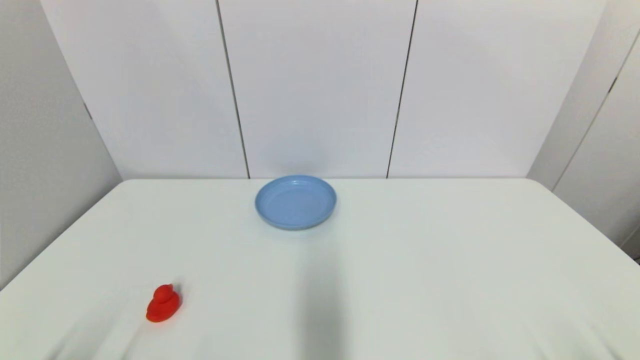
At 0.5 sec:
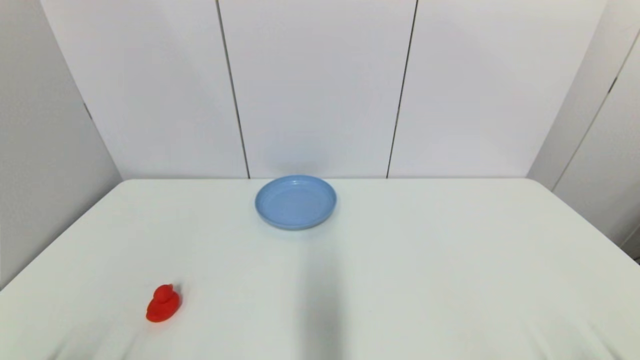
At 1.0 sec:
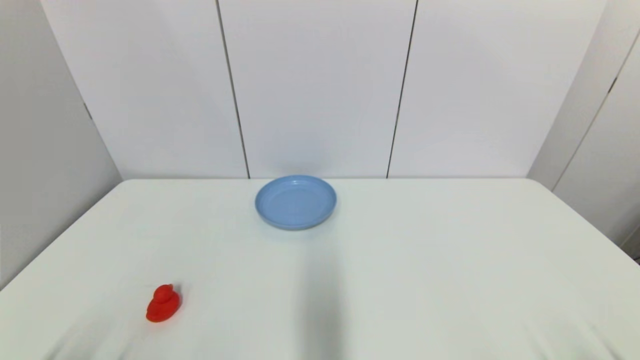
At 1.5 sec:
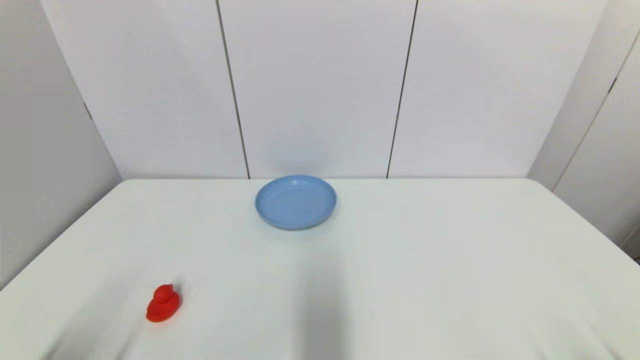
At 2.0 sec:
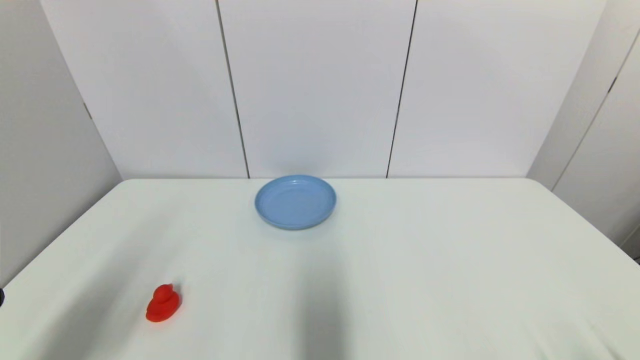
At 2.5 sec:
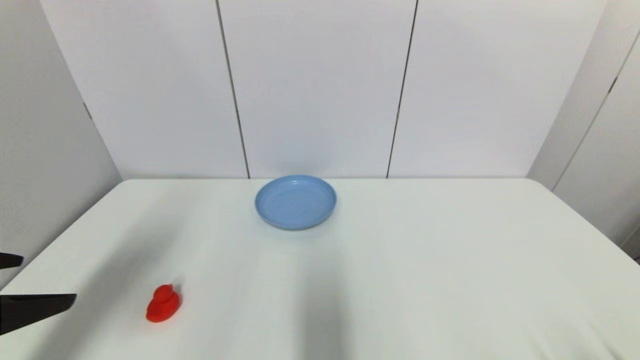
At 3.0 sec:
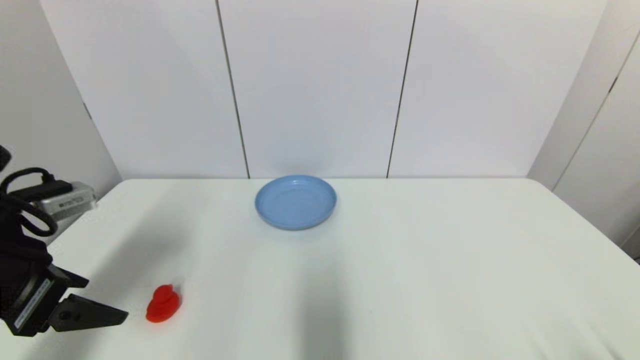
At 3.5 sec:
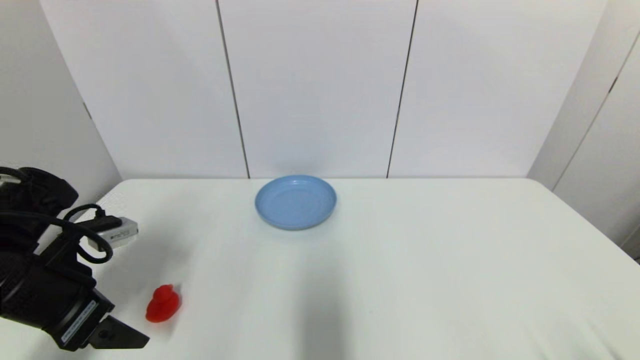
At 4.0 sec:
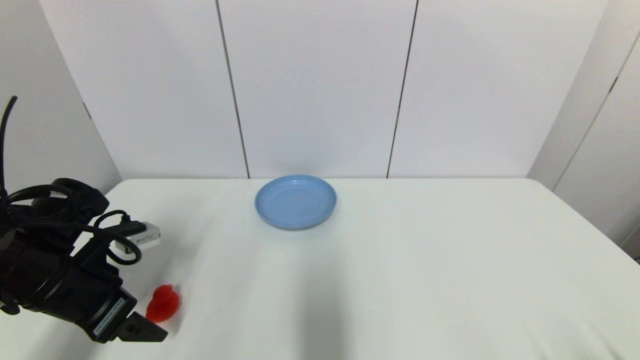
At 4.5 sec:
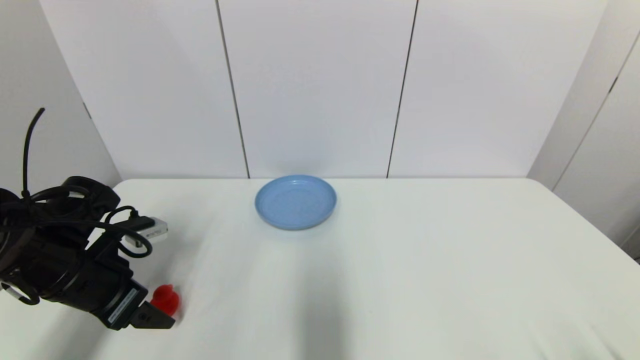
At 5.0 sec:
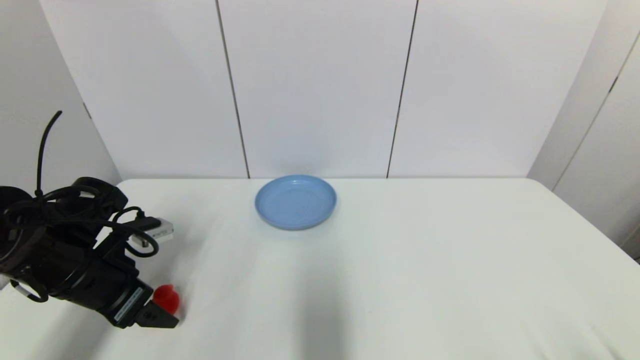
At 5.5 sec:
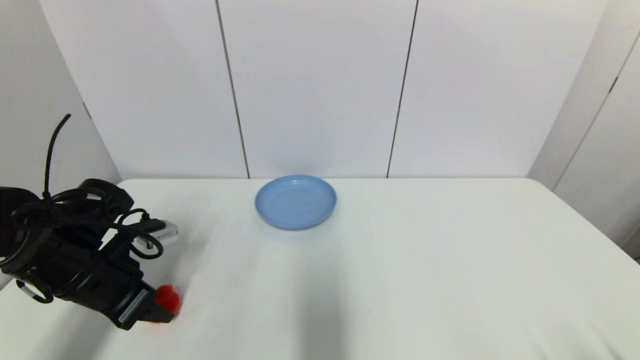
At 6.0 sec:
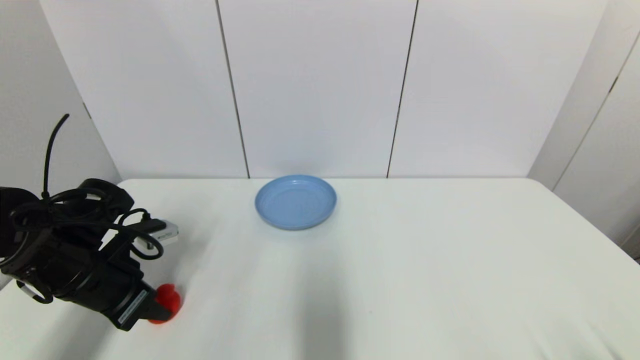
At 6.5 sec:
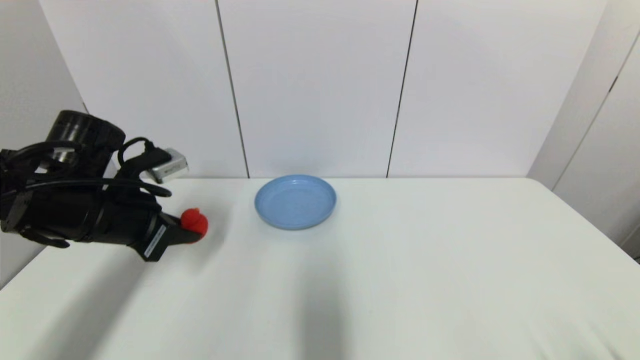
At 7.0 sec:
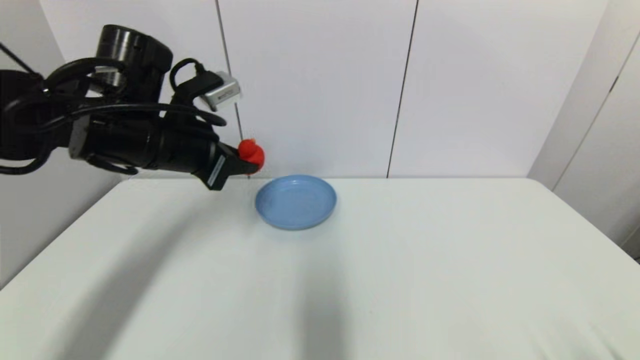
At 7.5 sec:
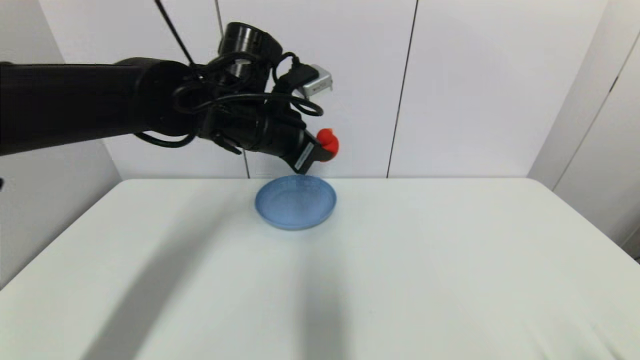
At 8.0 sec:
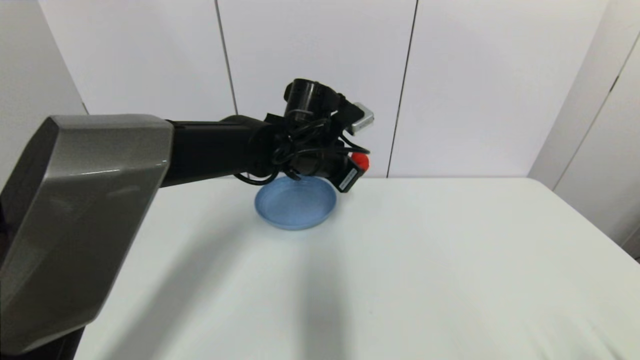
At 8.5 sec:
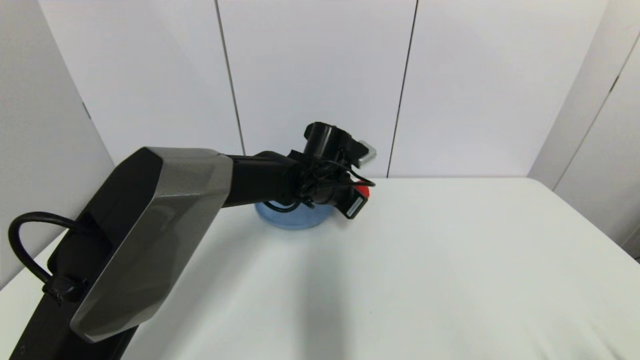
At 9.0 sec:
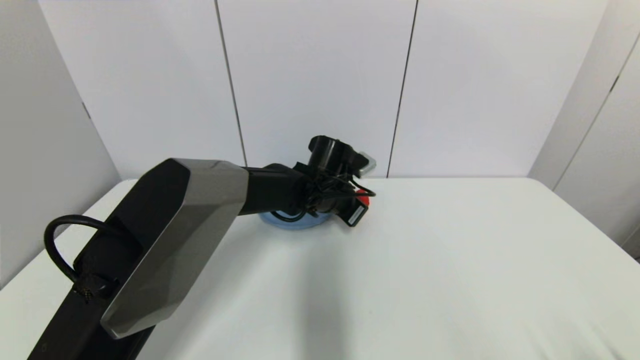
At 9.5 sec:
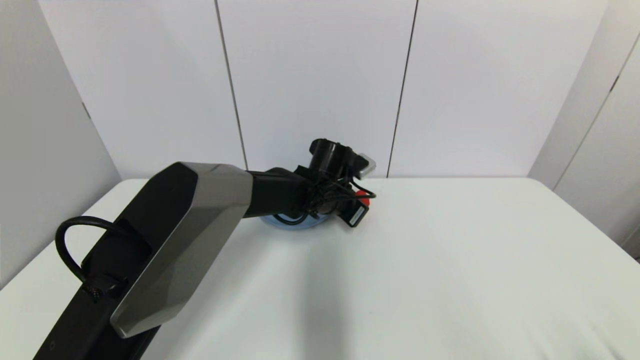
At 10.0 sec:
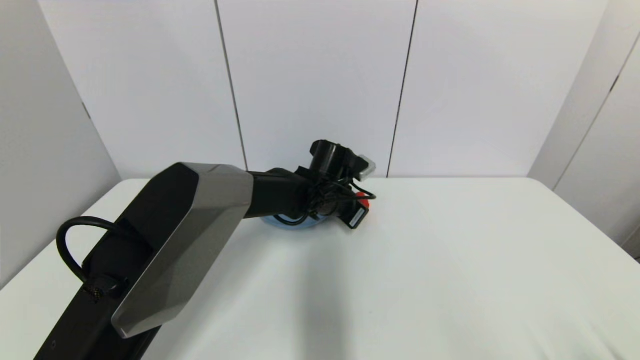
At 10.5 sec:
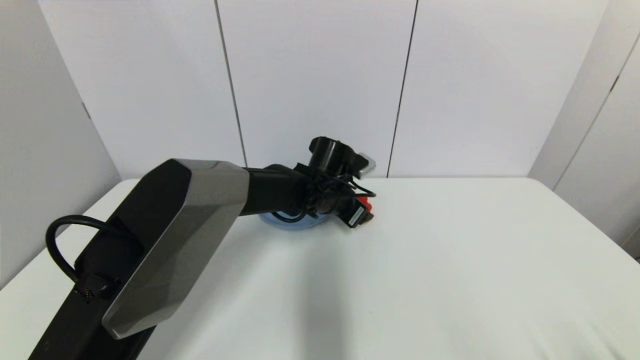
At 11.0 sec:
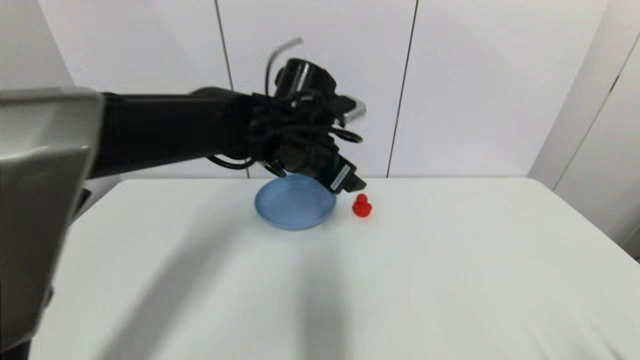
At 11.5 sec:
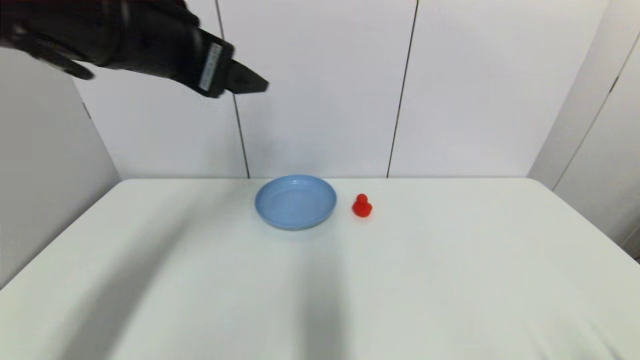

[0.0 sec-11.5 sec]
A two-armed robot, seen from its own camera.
Step, 2.0 sec to 6.0 sec: Grasp the red duck with left gripper.
Step, 6.5 sec to 10.0 sec: Place the red duck on the table with left gripper.
0.0 sec to 2.0 sec: The left gripper moves upward, about 15 cm.
2.0 sec to 4.0 sec: The left gripper is displaced forward and downward by about 20 cm.
4.0 sec to 6.0 sec: The left gripper closes.
6.0 sec to 7.5 sec: The left gripper moves to the right, upward and forward, approximately 25 cm.
7.5 sec to 9.5 sec: The left gripper heads downward, to the right and forward, covering approximately 20 cm.
9.5 sec to 11.5 sec: The left gripper travels upward, to the left and backward by approximately 35 cm, and opens.

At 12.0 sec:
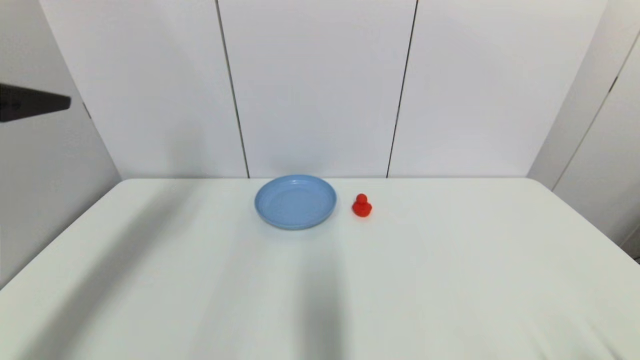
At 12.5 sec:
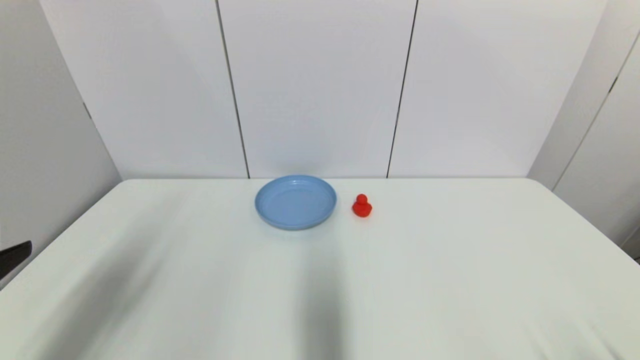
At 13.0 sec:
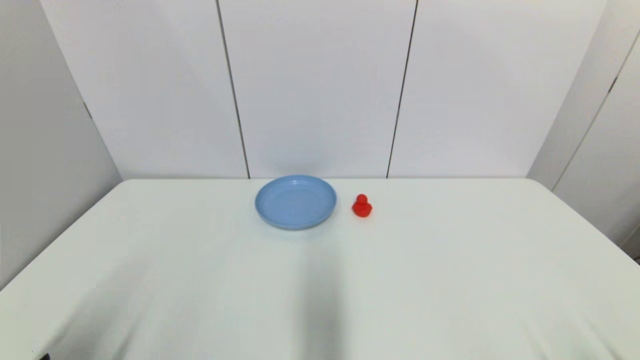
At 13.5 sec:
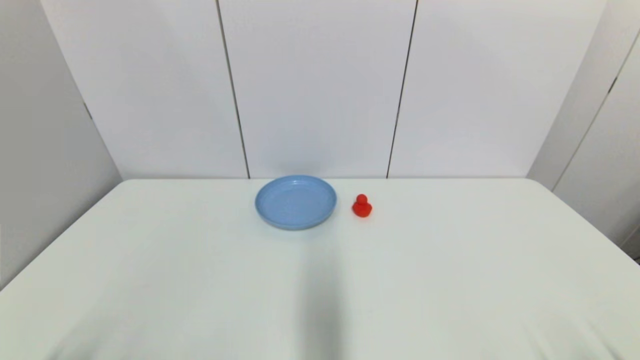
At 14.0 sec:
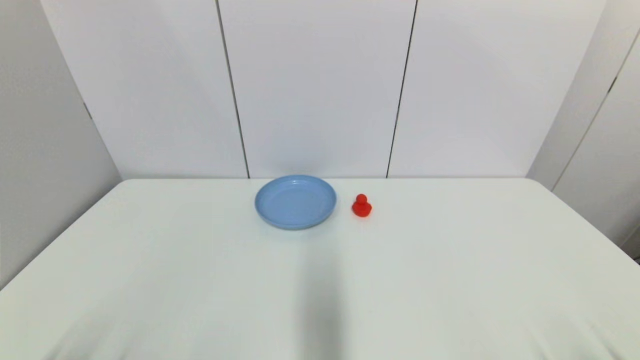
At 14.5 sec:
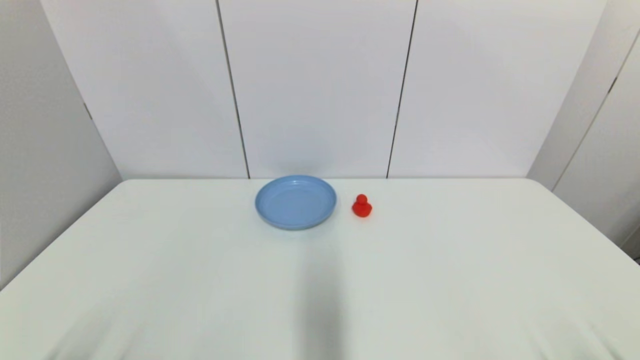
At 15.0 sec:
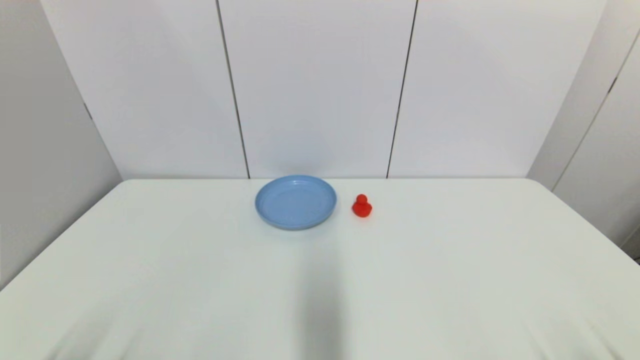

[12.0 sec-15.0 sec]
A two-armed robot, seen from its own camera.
12.0 sec to 13.5 sec: The left gripper heads downward and backward, covering approximately 35 cm.
13.5 sec to 15.0 sec: The two grippers keep their place.

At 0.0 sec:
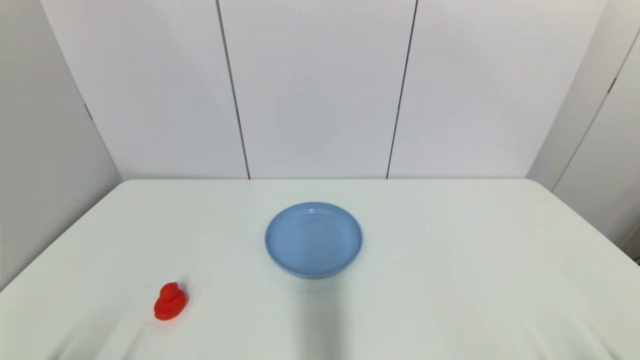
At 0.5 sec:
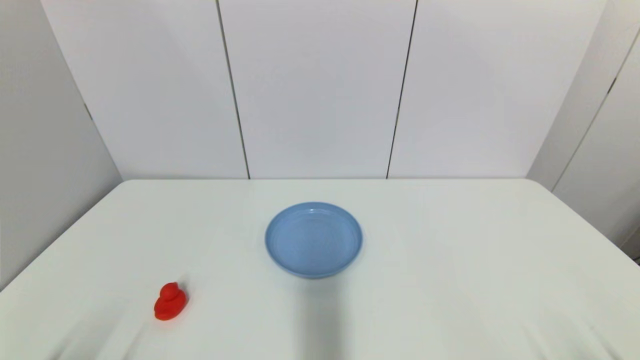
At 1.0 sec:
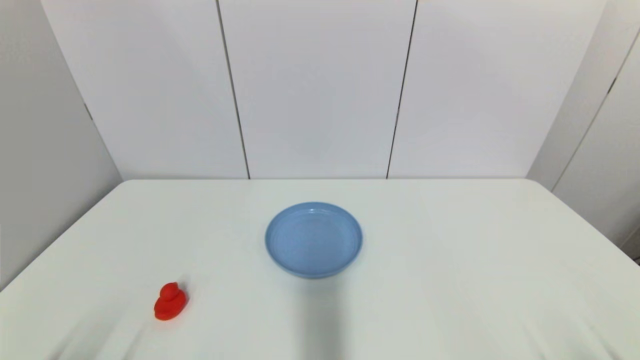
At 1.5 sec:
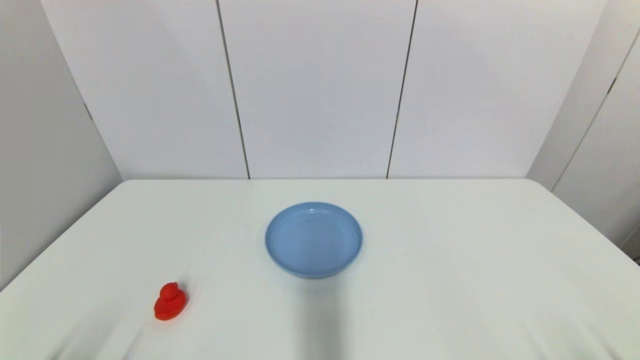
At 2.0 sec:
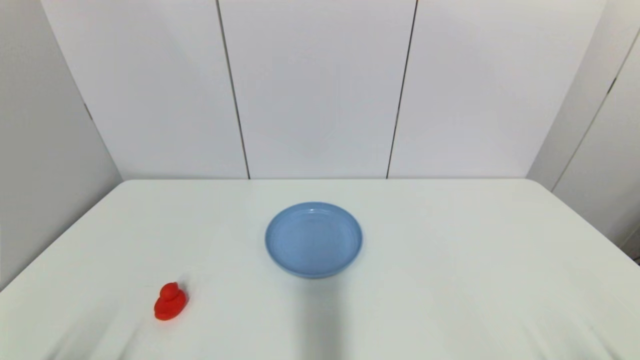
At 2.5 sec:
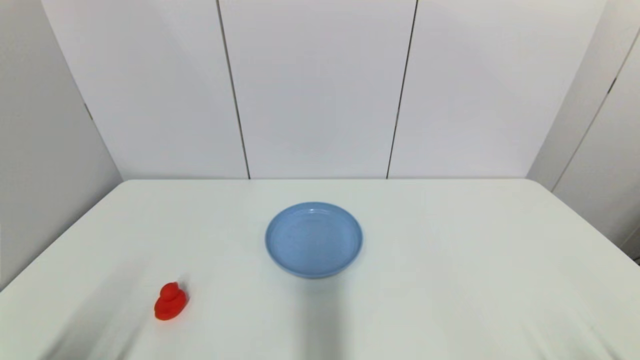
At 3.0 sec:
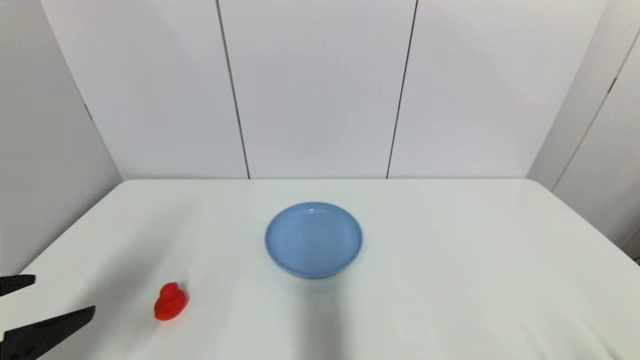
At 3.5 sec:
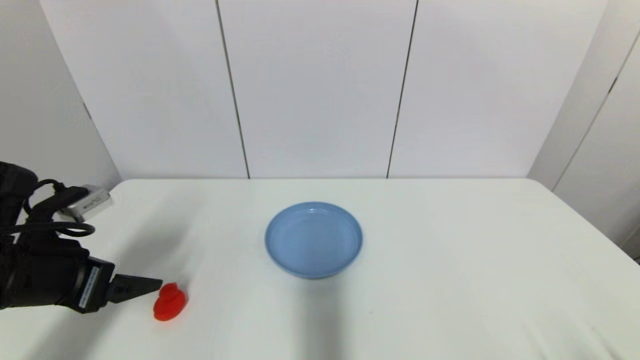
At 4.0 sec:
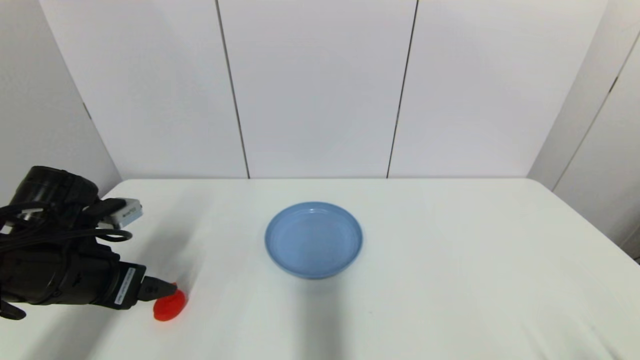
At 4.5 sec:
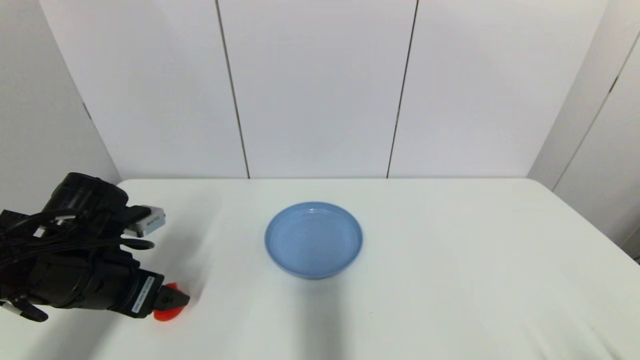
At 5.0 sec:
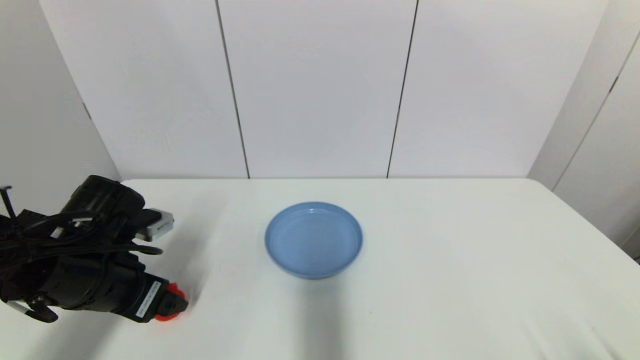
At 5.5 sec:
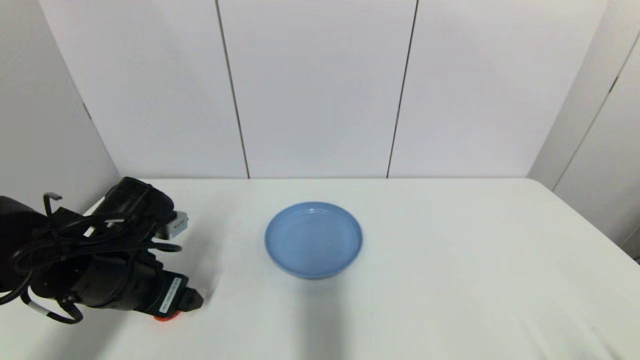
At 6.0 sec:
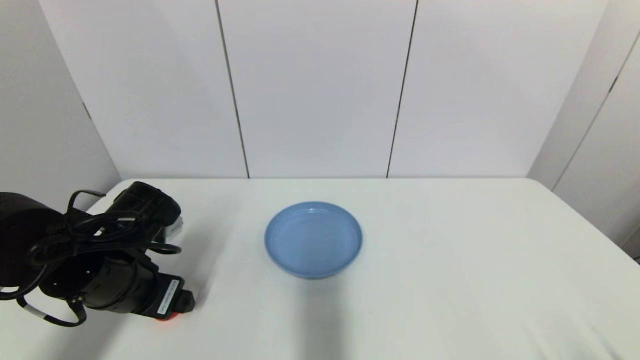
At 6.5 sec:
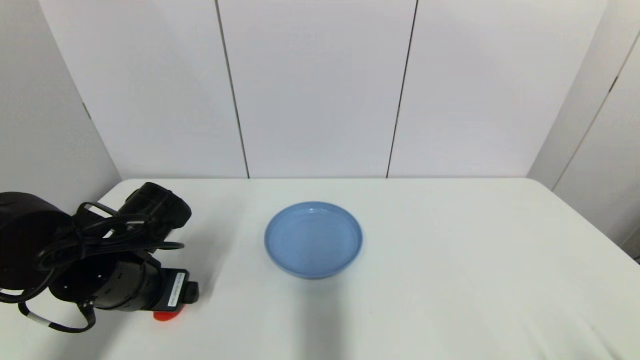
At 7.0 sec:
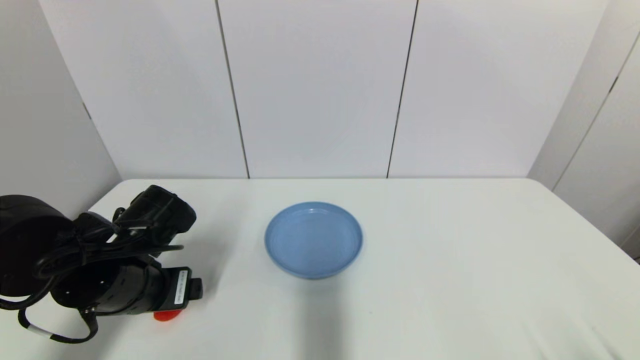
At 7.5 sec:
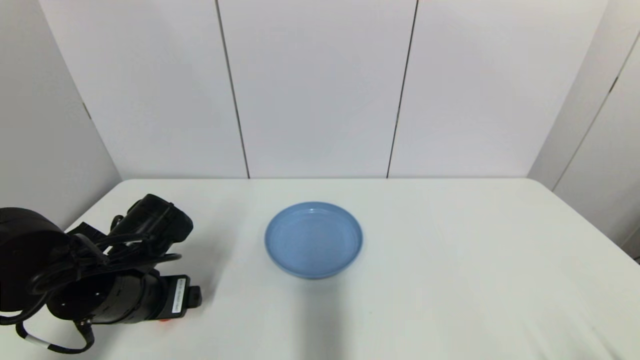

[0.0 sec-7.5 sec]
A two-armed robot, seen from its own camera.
2.0 sec to 4.0 sec: The left gripper shifts some 25 cm forward and upward.
4.0 sec to 5.5 sec: The left gripper shifts about 5 cm to the right.
5.5 sec to 7.5 sec: There are only small adjustments of the grippers.
